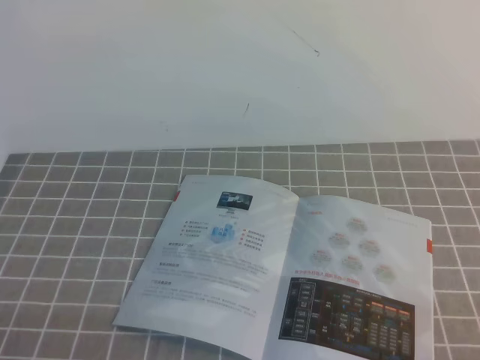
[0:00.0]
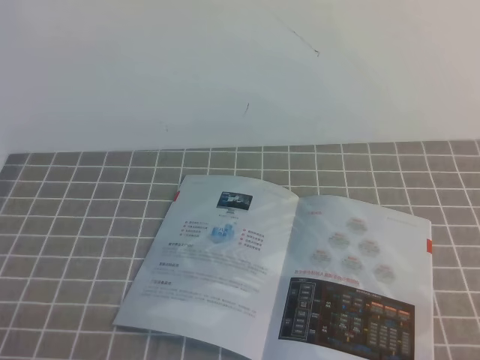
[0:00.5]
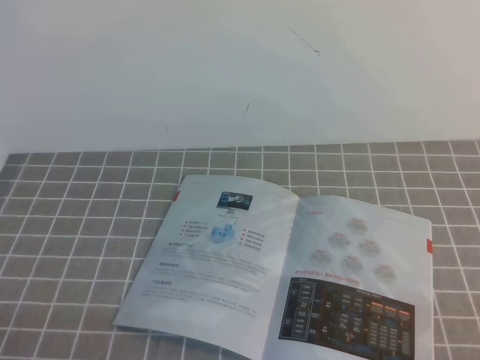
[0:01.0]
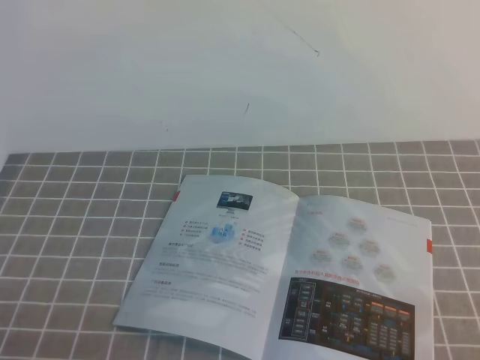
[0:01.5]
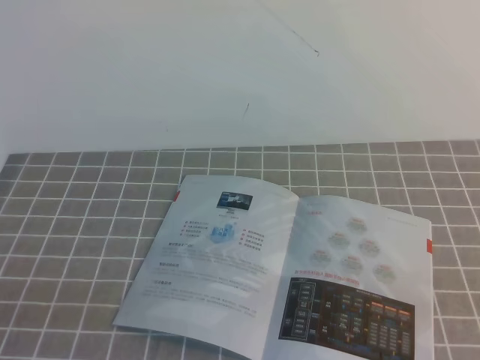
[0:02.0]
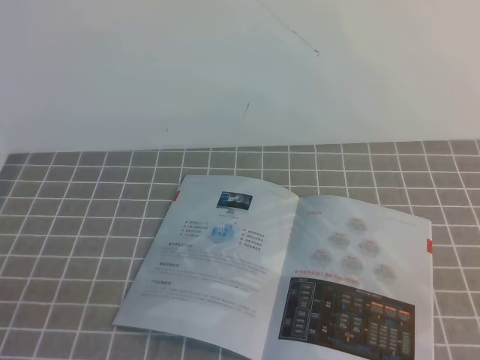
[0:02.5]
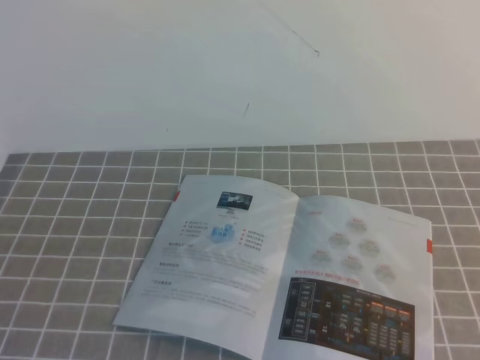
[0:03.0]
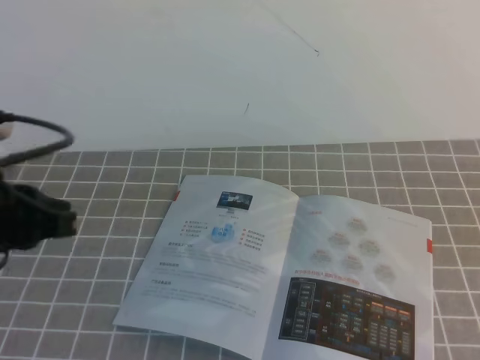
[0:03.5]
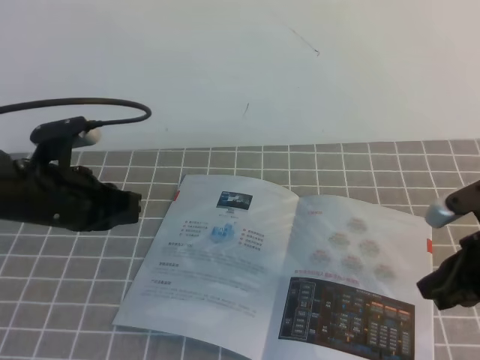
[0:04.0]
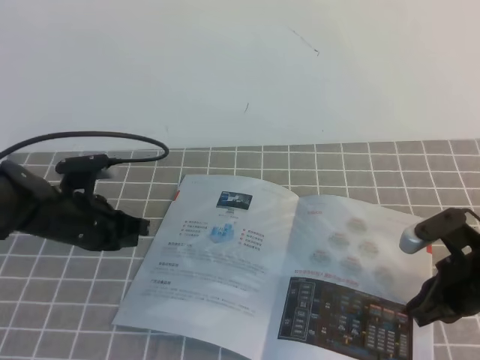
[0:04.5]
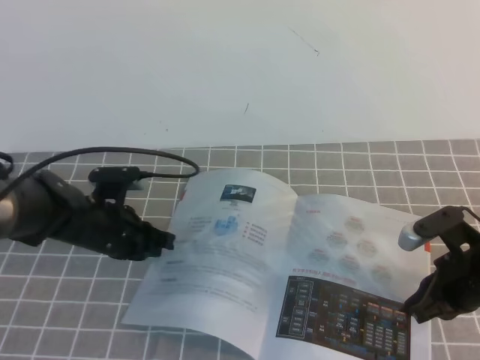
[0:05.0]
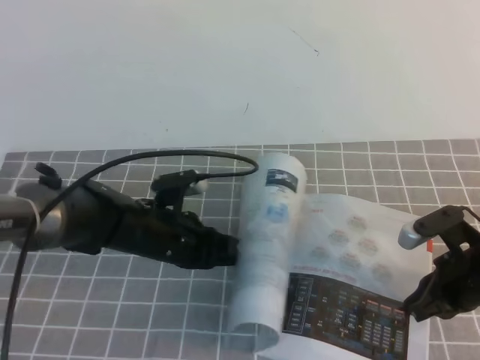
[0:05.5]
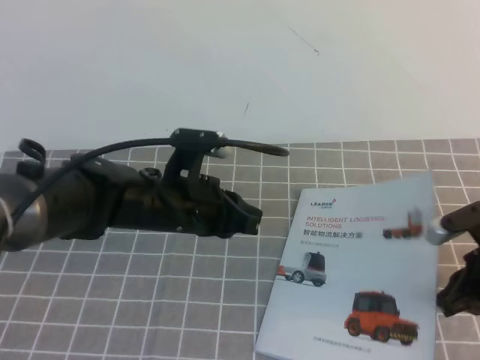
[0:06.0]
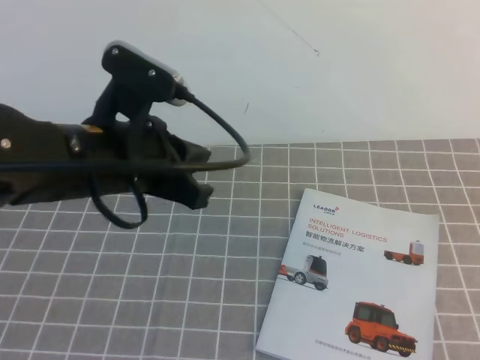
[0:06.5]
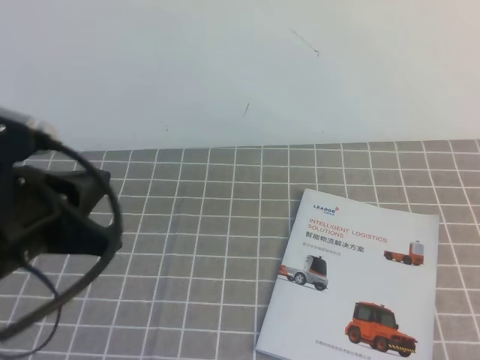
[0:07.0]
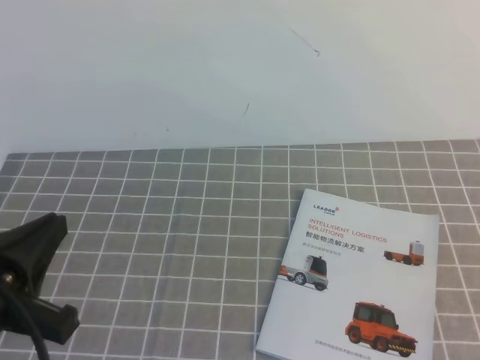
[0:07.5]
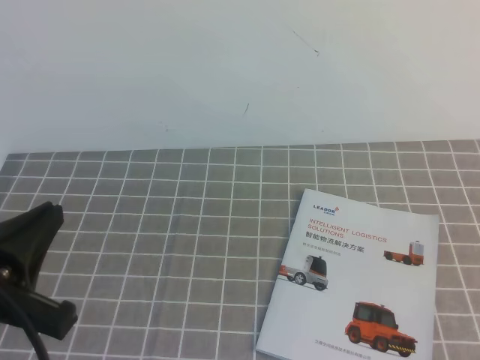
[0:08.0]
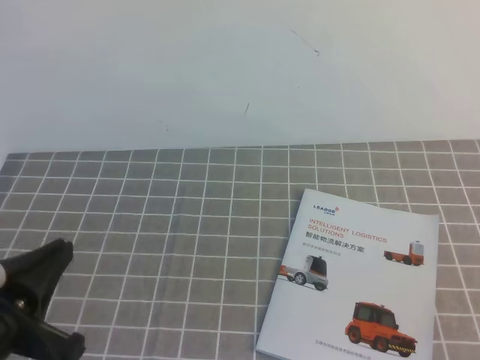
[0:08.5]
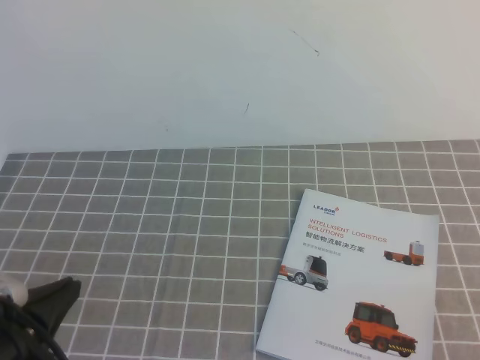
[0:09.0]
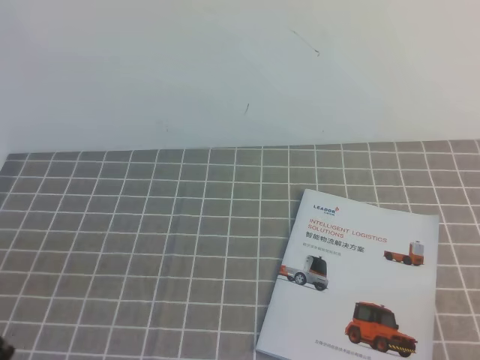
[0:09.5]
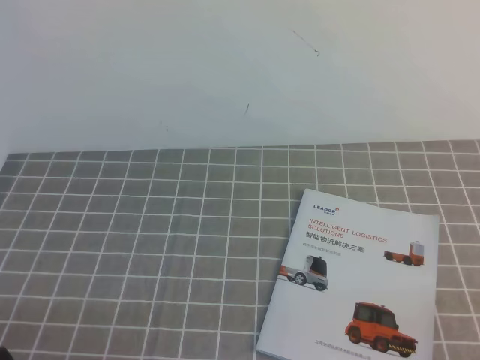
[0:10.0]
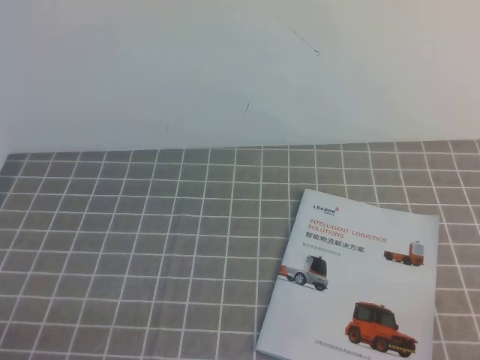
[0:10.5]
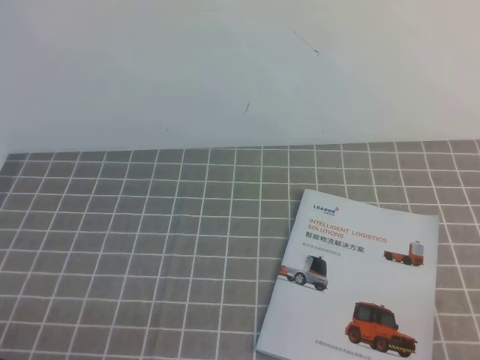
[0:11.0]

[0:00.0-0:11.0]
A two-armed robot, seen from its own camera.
Task of the whole recording: on the grey tablecloth, hold the book with one hand and close it with the other.
0:02.0 to 0:03.5: The left gripper goes roughly 20 cm forward and upward.
0:03.5 to 0:05.5: The left gripper heads downward, forward and to the right, covering approximately 25 cm. Meanwhile the right gripper moves downward and forward, some 20 cm.
0:05.5 to 0:07.5: The left gripper is displaced backward, upward and to the left by roughly 30 cm. The right gripper shifts roughly 30 cm backward and upward.
0:09.0 to 0:11.0: The left gripper heads downward and backward, covering roughly 10 cm.

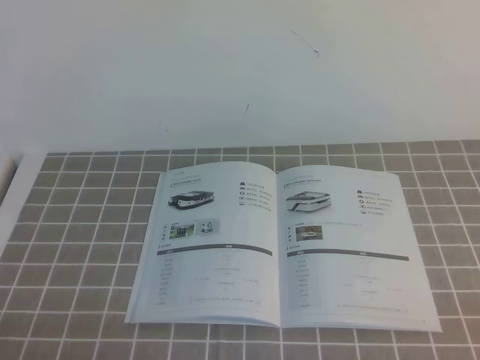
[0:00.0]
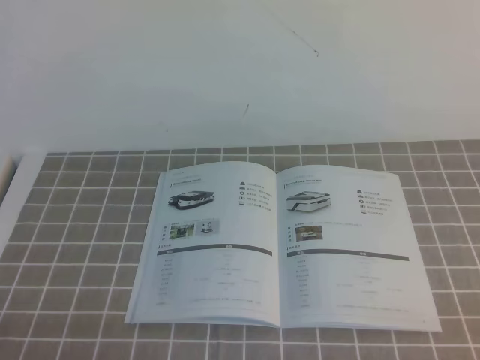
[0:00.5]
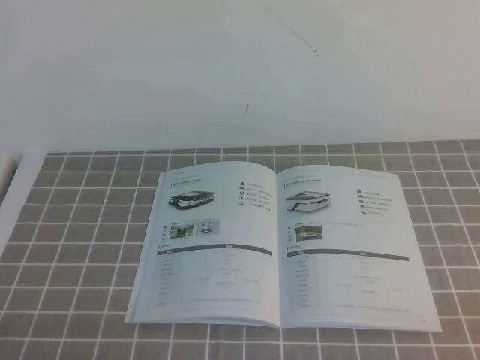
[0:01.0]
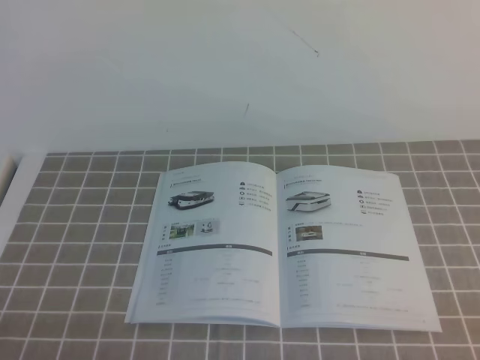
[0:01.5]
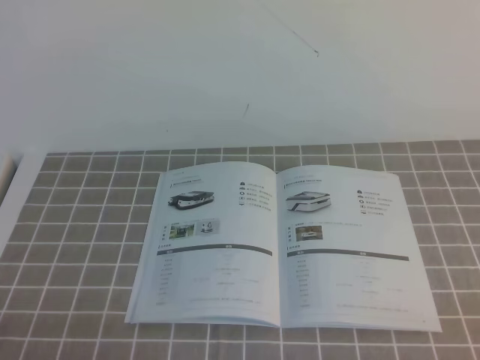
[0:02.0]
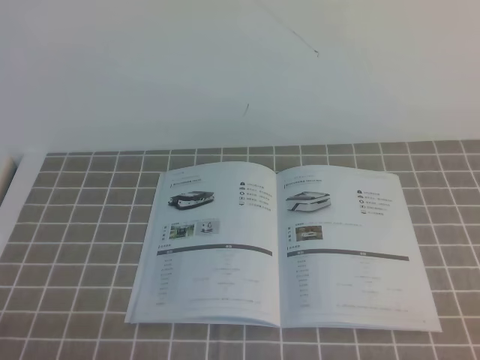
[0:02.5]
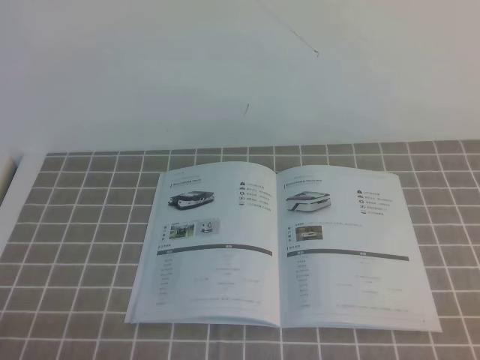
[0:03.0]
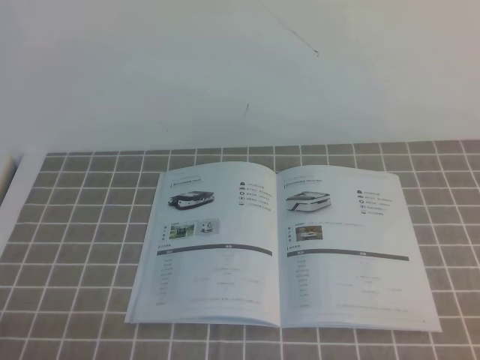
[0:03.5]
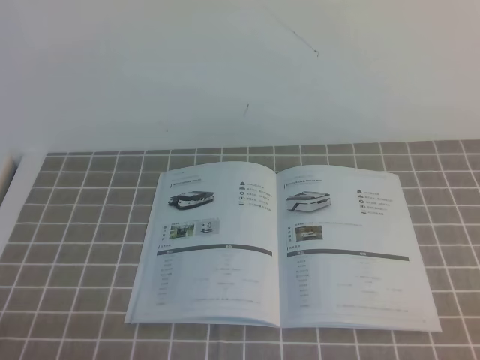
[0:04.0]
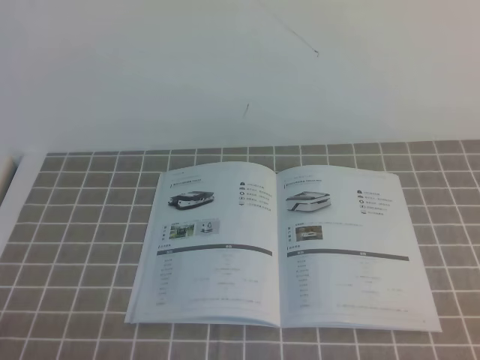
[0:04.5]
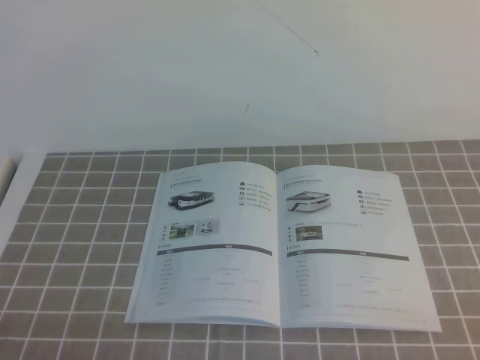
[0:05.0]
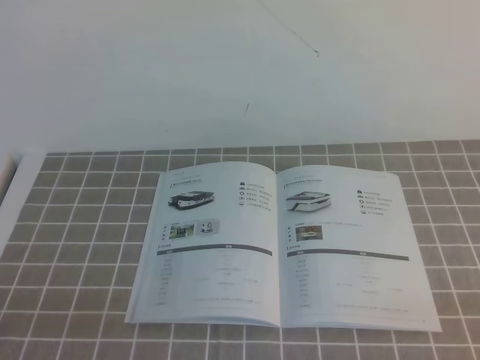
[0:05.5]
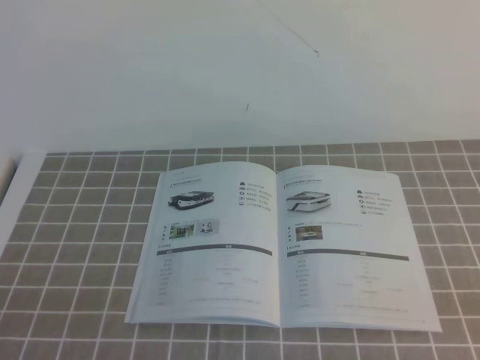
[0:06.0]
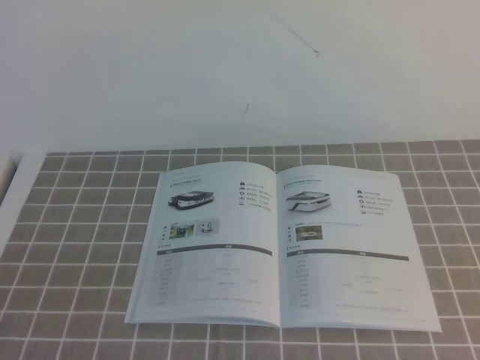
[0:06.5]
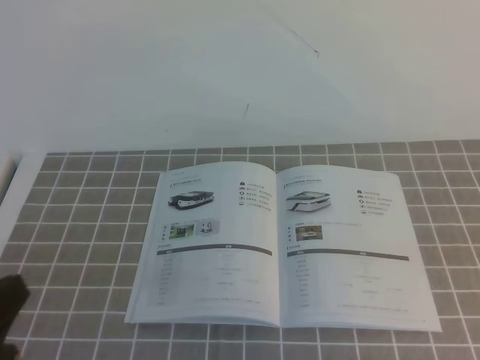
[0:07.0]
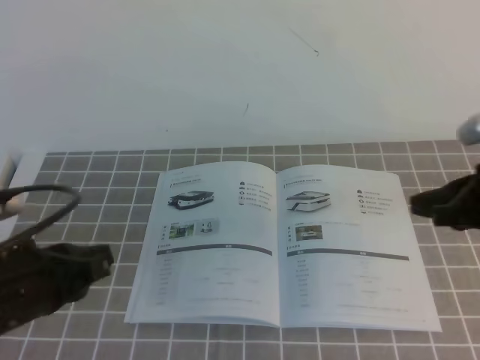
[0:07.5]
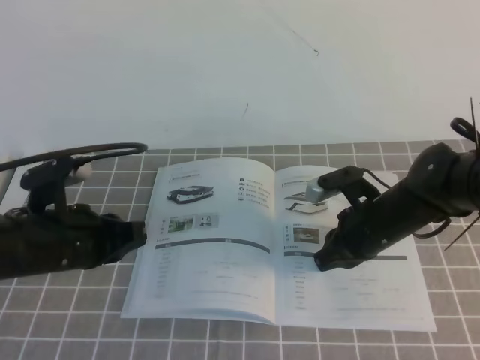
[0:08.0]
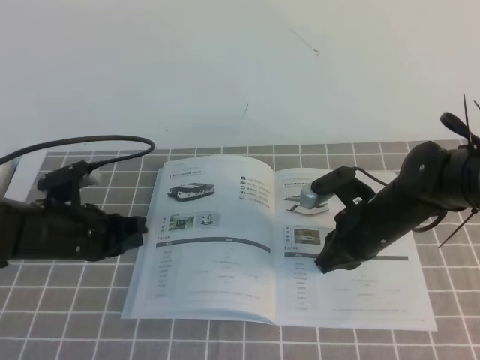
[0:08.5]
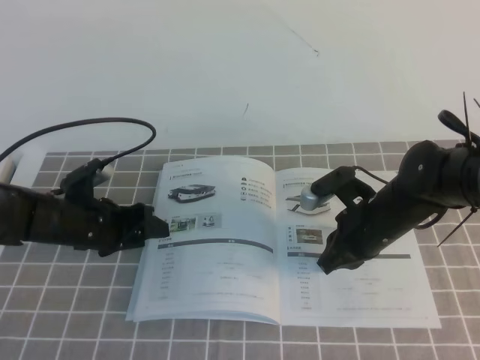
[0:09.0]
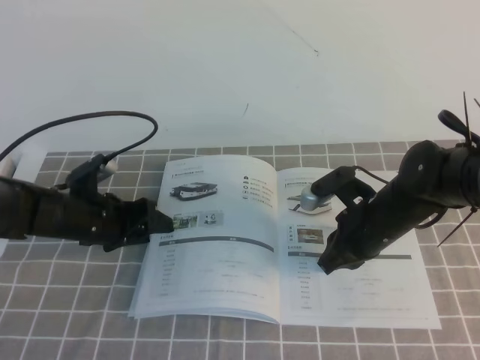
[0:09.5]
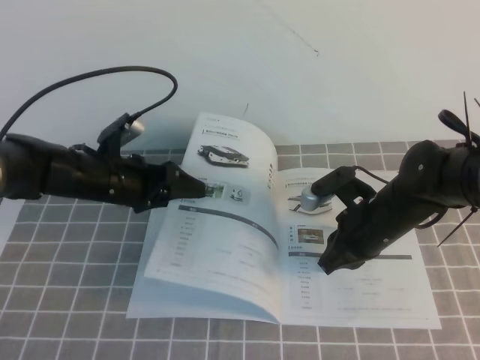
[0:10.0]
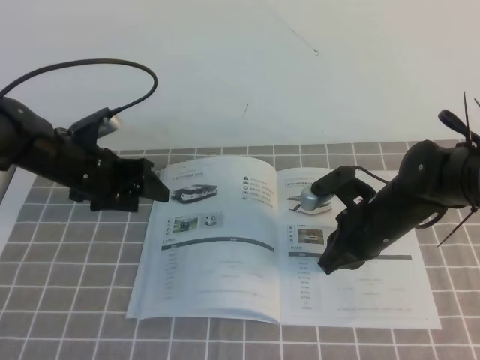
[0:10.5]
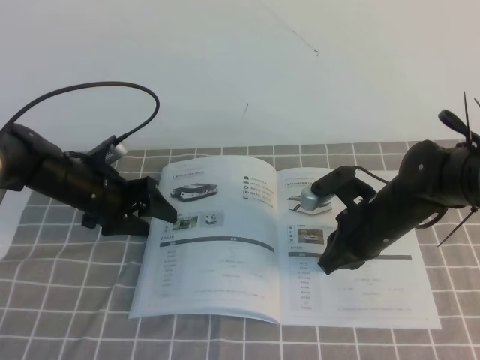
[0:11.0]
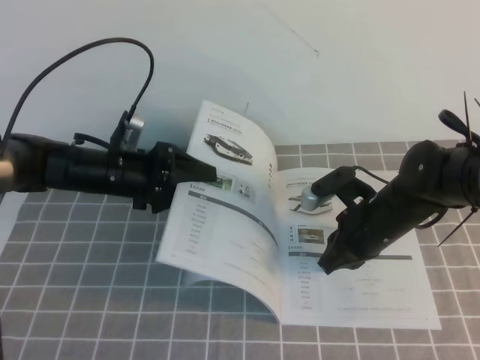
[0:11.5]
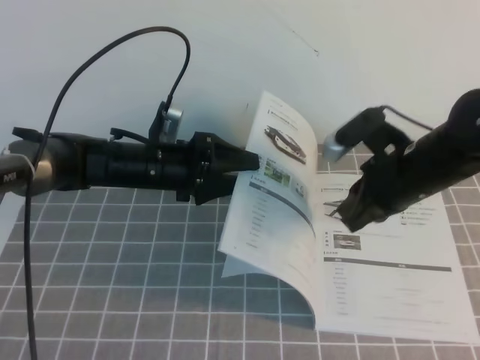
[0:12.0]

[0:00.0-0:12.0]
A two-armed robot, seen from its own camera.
Task of the whole recording: on the grey tablecloth, hold the book with one hand and close it with the other.
0:00.0 to 0:04.0: Both grippers stay about where they are.
0:06.0 to 0:08.0: The left gripper travels forward by roughly 25 cm; the right gripper moves forward and to the left, some 35 cm.
0:08.0 to 0:10.0: The left gripper goes approximately 15 cm forward, and opens its fingers.
0:10.0 to 0:12.0: The right gripper heads upward, covering some 10 cm; the left gripper goes about 5 cm to the right.

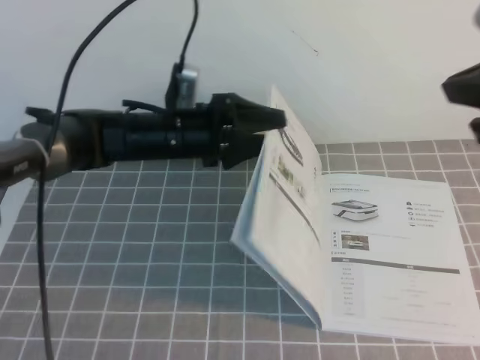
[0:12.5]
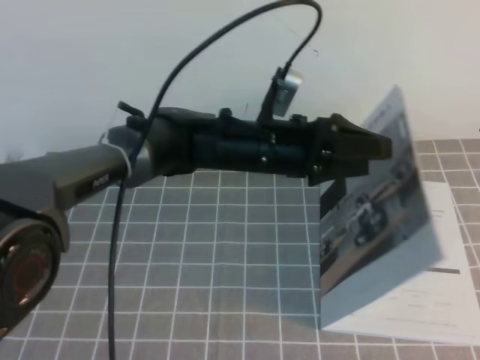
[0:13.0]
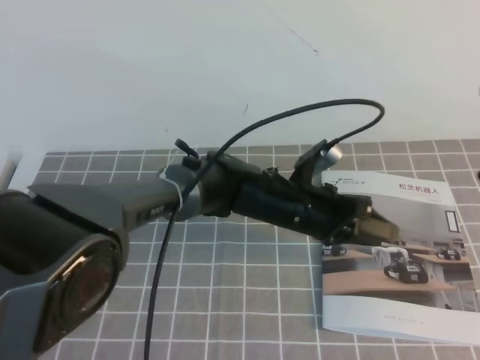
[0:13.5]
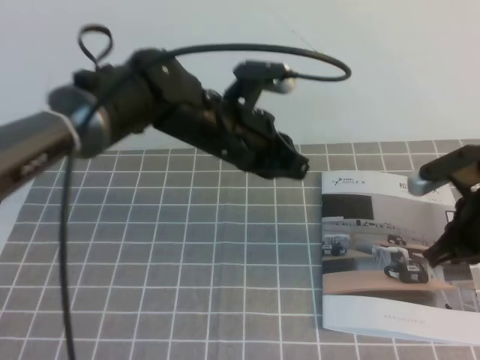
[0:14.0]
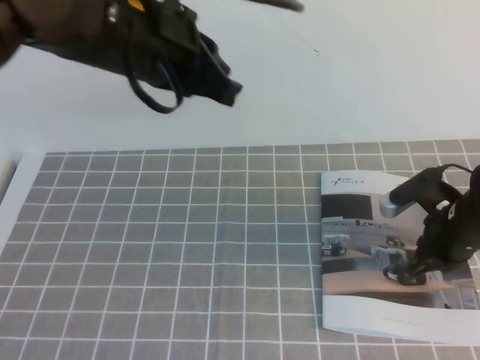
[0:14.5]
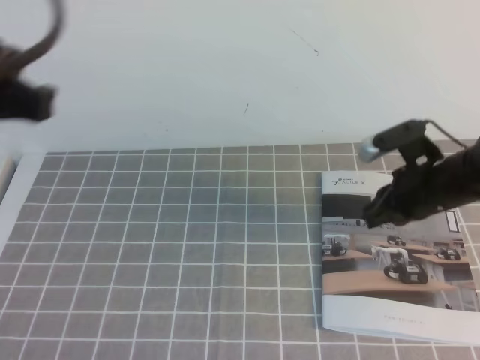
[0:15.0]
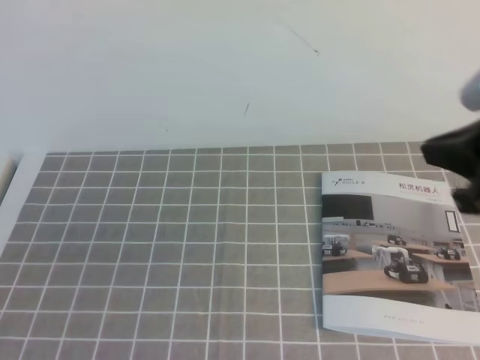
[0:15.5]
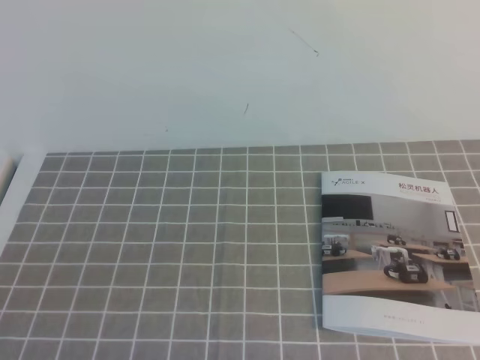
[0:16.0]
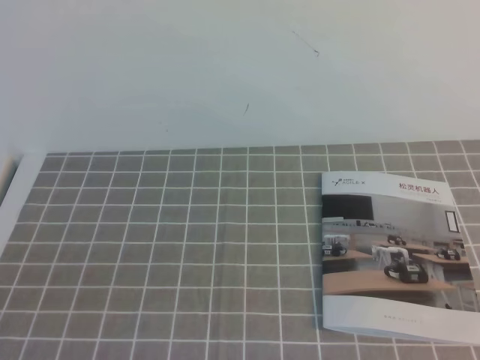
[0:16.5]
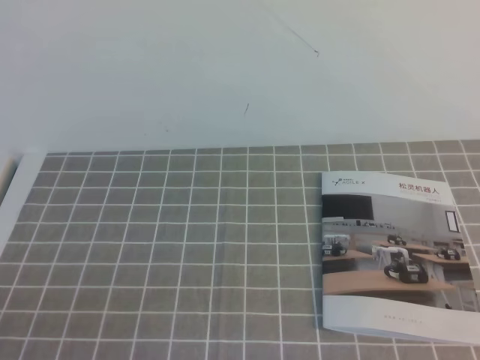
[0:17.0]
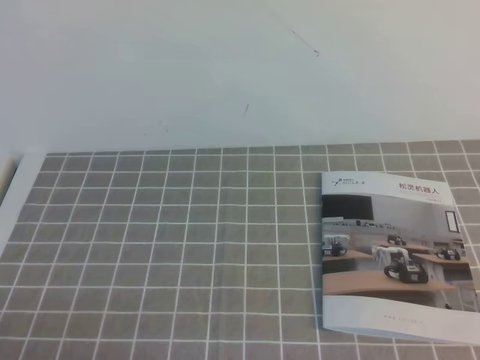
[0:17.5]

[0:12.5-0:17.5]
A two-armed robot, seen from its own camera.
Task of the whole recording: on the grey tablecloth, hold the book with one hand and close it with the other.
0:12.5 to 0:15.0: The left gripper goes about 35 cm upward, backward and to the left, and closes its fingers. The right gripper moves downward and forward, roughly 20 cm.
0:15.0 to 0:17.5: The left gripper is displaced downward and backward by approximately 30 cm; the right gripper moves backward, some 30 cm.
